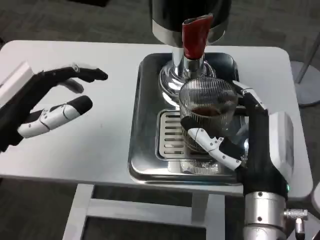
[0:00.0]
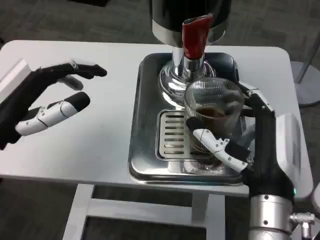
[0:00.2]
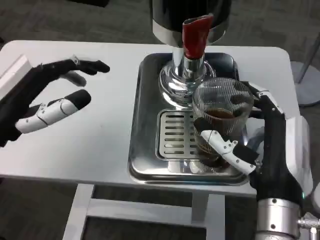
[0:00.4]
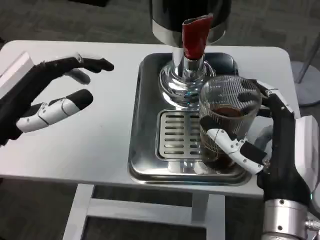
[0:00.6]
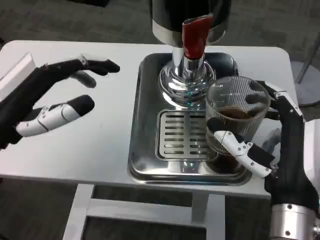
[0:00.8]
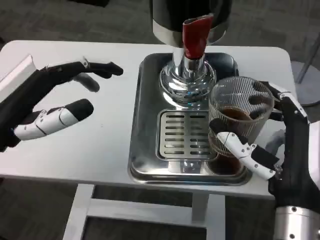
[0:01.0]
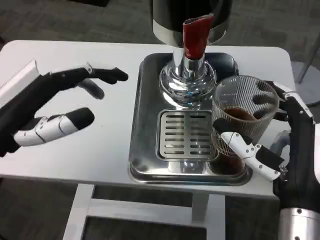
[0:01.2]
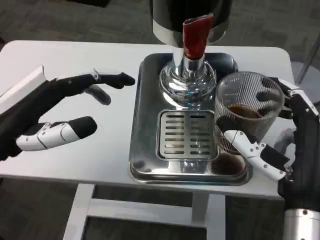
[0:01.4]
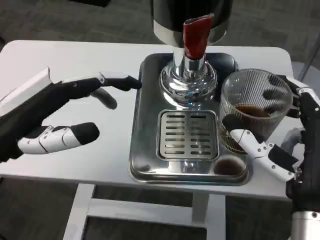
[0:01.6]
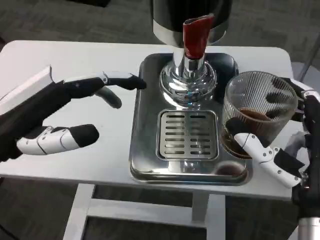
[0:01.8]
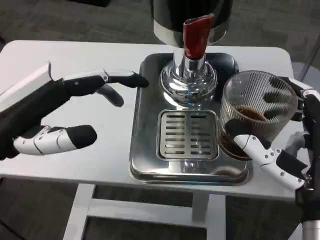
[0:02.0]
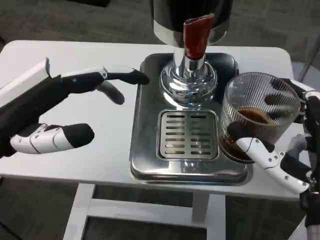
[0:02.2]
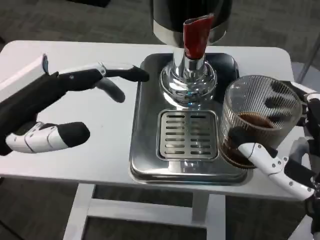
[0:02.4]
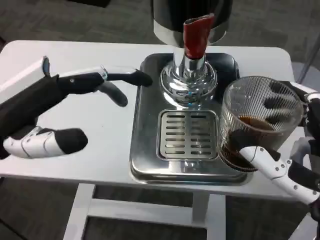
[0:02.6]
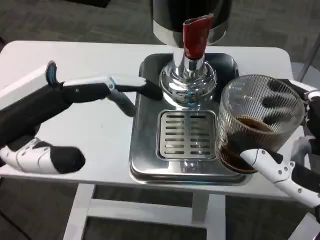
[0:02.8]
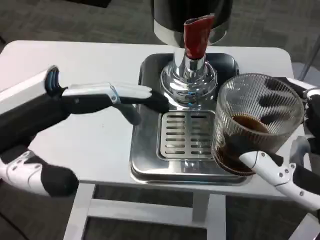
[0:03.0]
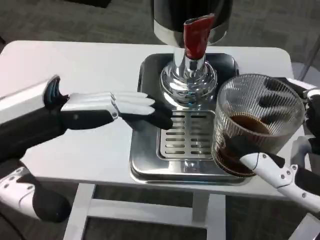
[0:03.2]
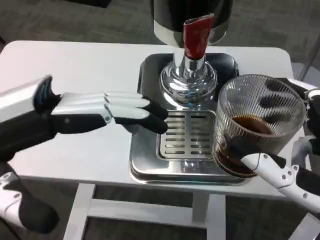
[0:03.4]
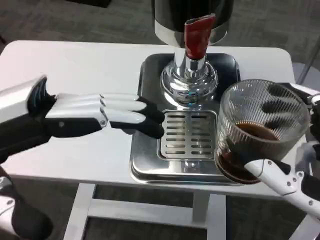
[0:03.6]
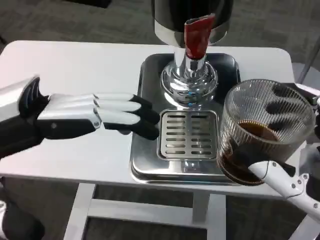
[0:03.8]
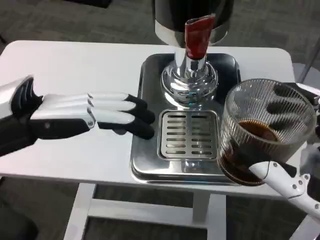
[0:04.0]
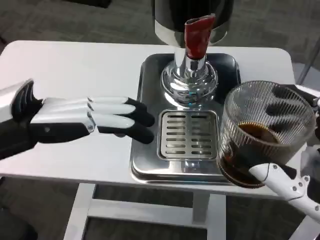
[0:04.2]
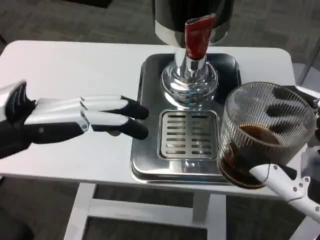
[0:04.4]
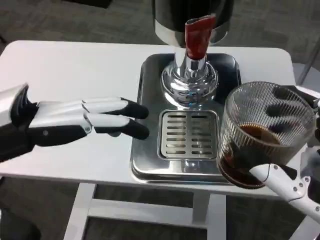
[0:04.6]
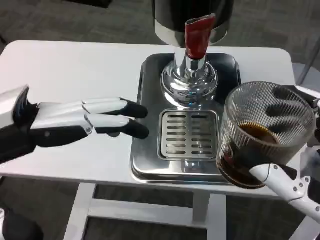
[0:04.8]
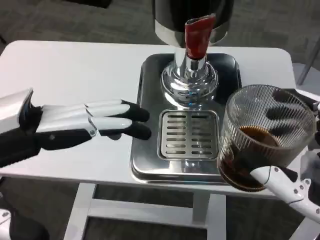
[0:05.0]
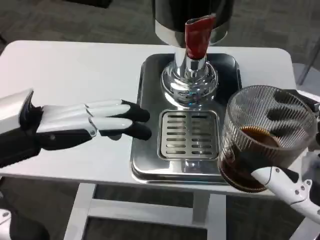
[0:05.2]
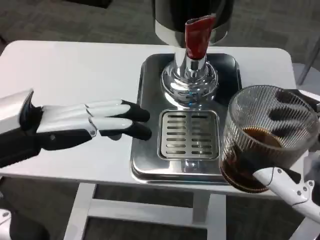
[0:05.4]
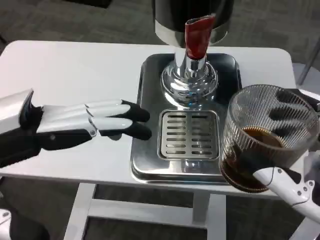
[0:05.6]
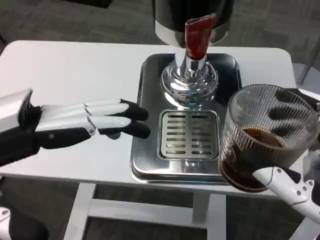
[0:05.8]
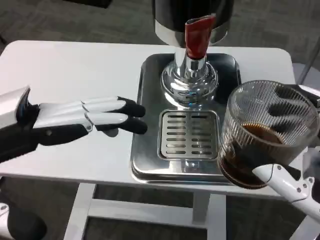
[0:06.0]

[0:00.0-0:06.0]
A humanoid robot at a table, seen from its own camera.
Task of the whole recording: Grasp the cup under the faucet to collect the drink, then remove the cup.
0:00.0 to 0:01.6: The right hand ends up approximately 5 cm from where it was.
0:01.6 to 0:03.0: The left hand shifts by some 5 cm, while the right hand shifts about 5 cm backward.
0:04.4 to 0:06.0: Neither hand changes place.

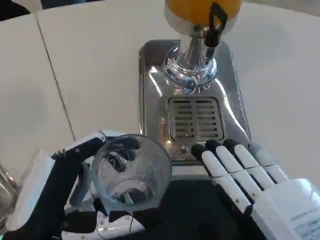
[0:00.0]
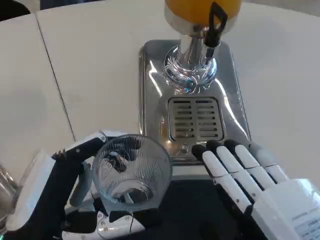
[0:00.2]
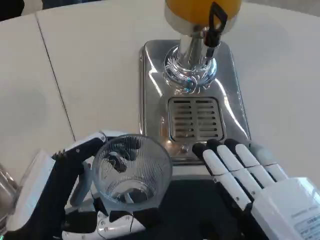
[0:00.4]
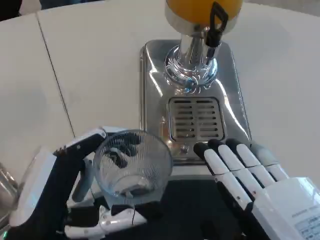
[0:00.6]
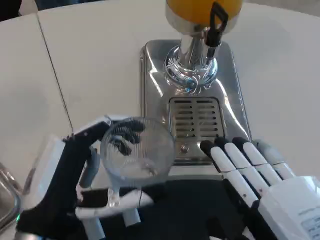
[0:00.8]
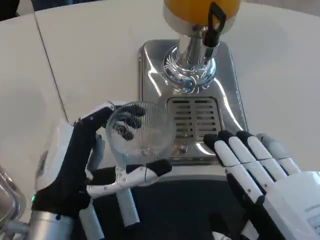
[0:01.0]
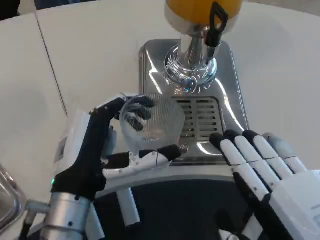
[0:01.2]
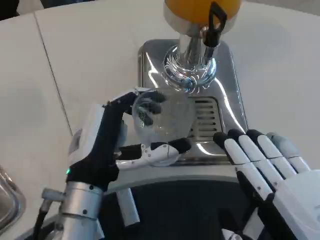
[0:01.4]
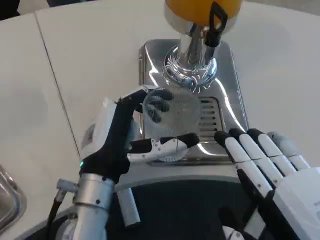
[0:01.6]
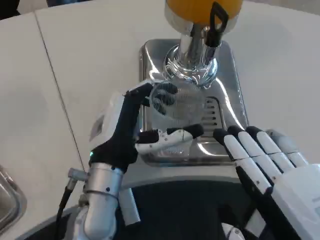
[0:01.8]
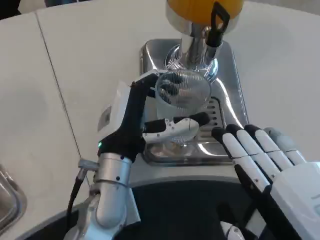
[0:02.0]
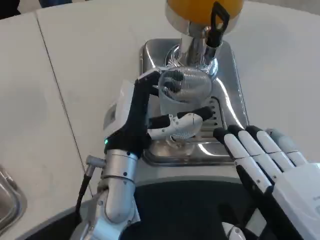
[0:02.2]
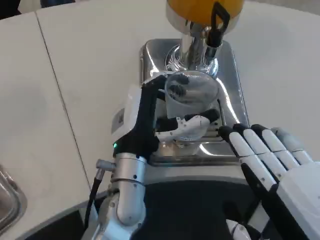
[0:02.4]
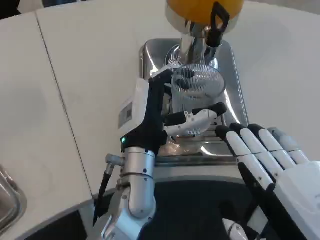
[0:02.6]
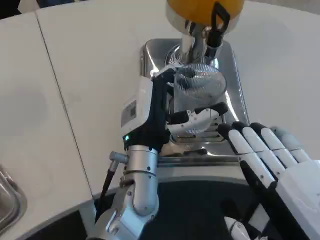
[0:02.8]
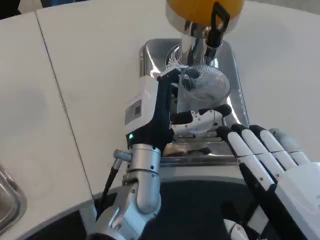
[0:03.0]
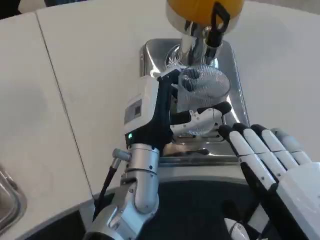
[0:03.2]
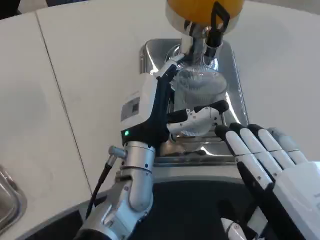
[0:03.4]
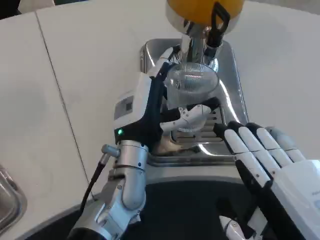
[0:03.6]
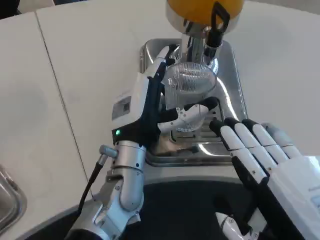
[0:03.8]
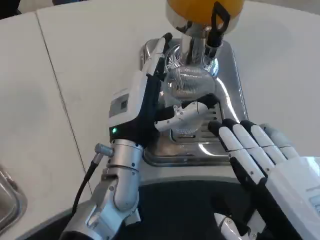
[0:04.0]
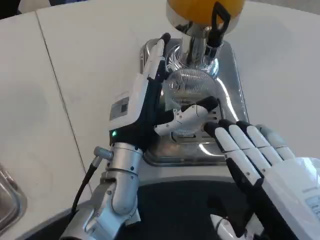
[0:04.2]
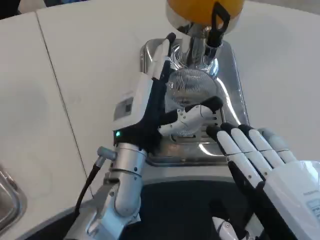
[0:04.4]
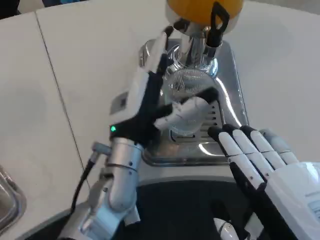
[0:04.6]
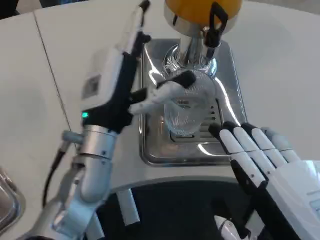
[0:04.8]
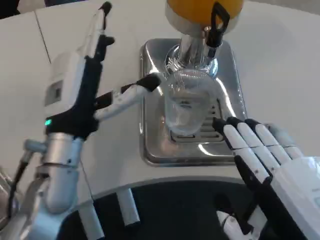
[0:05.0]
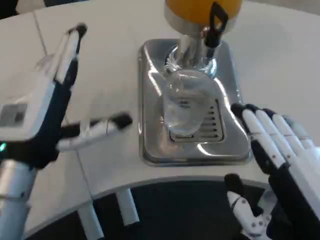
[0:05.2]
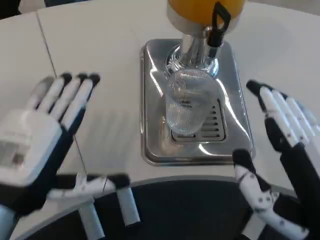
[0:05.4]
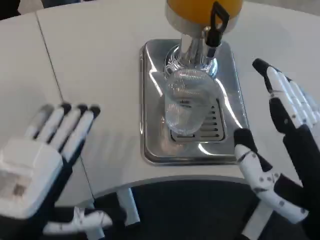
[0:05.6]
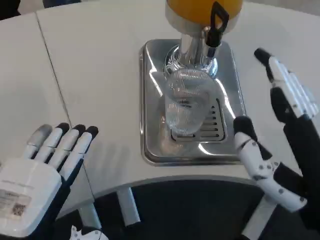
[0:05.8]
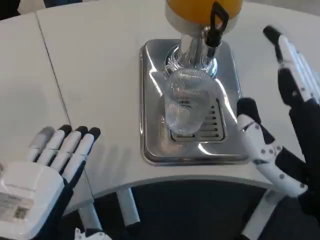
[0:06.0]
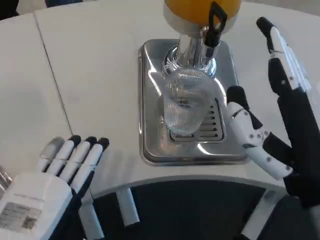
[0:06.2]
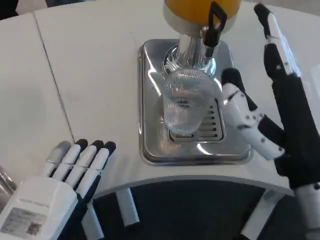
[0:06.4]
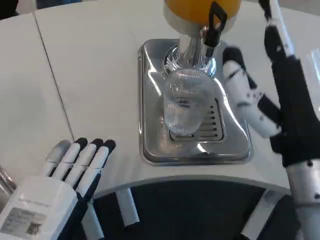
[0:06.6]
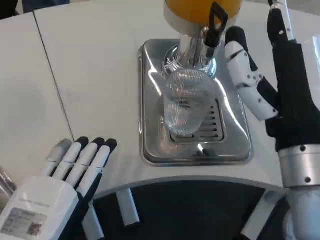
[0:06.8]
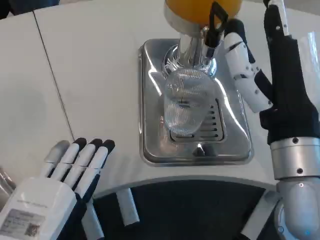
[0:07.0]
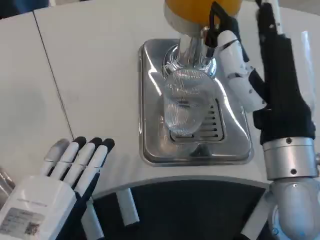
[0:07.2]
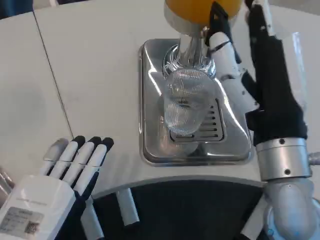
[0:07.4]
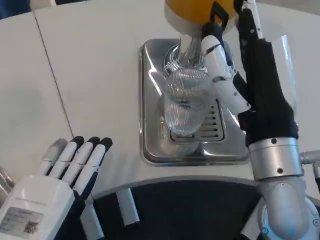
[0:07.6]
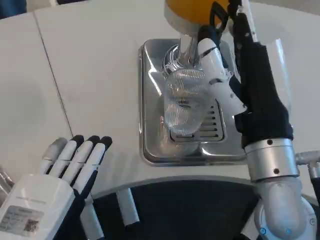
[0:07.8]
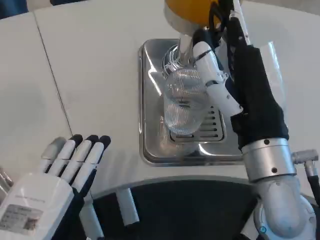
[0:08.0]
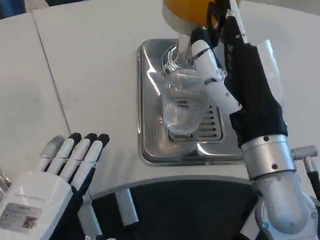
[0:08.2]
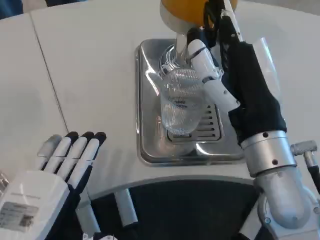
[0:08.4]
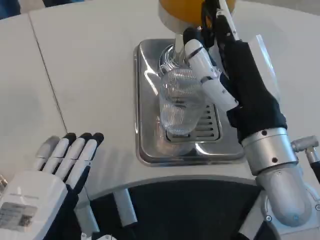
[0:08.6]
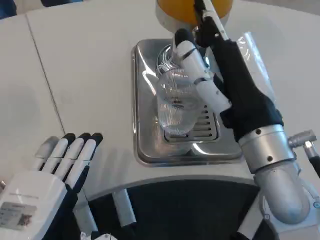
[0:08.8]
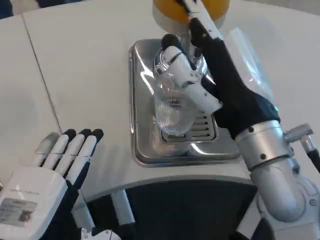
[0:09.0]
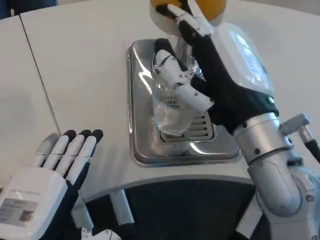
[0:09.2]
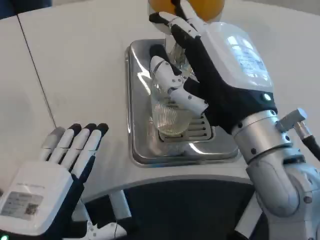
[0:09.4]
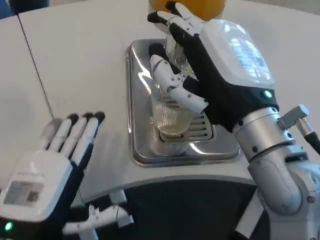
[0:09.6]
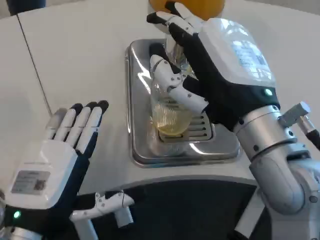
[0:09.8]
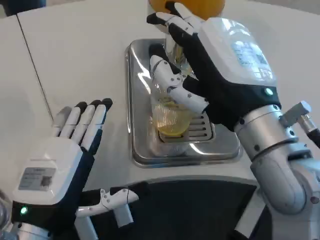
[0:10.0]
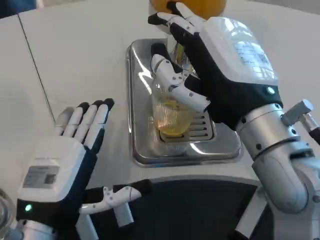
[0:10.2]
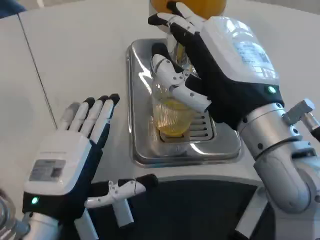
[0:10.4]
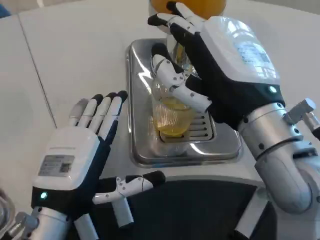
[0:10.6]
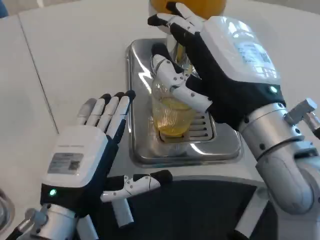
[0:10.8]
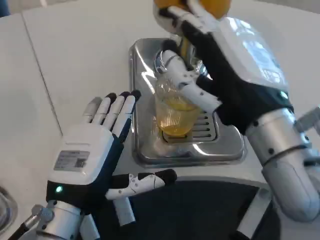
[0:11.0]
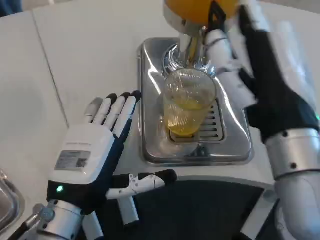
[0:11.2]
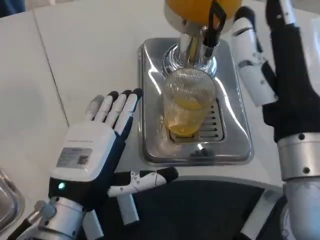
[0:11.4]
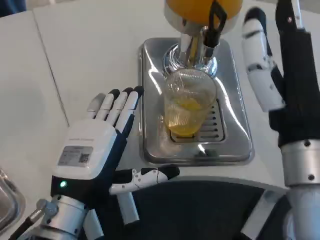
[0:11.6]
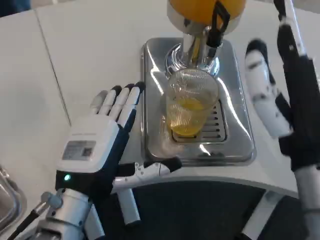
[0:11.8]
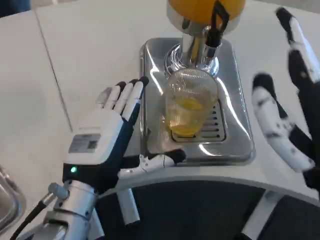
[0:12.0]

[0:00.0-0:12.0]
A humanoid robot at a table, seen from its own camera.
Task of the whole recording: Grasp the cup under the faucet to collect the drink, then remove the cup.
0:00.0 to 0:01.6: The left hand moves forward and to the right, some 15 cm.
0:01.6 to 0:03.0: The left hand is displaced to the right and forward by about 10 cm.
0:04.4 to 0:06.0: The left hand moves backward and to the left, some 20 cm, while the right hand shifts by some 5 cm.
0:06.0 to 0:07.6: The right hand travels forward by some 10 cm.
0:09.0 to 0:10.4: The left hand moves forward, approximately 5 cm.
0:10.4 to 0:12.0: The left hand moves approximately 5 cm. Meanwhile the right hand is displaced backward, to the right and downward by roughly 10 cm.

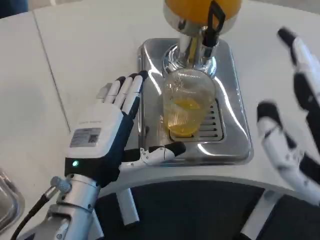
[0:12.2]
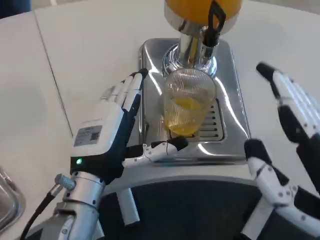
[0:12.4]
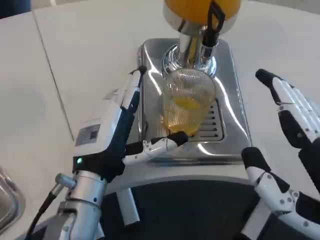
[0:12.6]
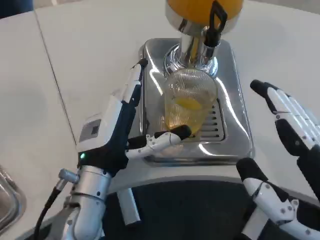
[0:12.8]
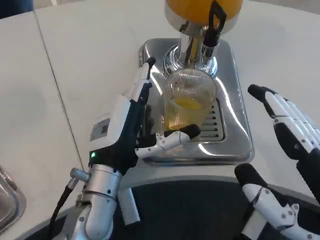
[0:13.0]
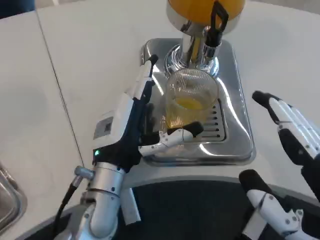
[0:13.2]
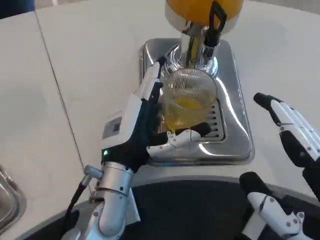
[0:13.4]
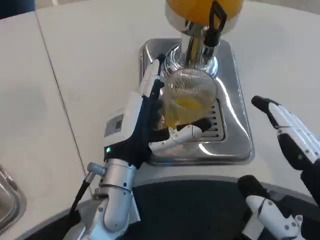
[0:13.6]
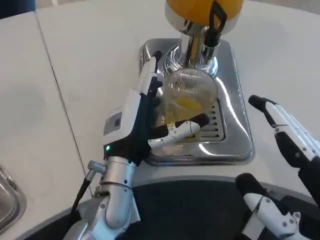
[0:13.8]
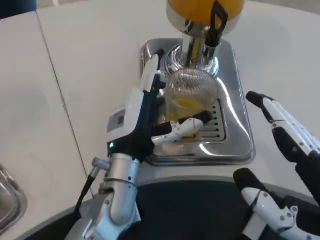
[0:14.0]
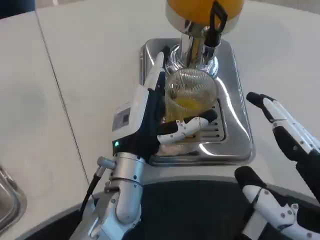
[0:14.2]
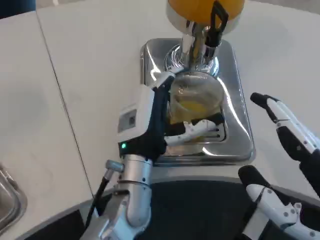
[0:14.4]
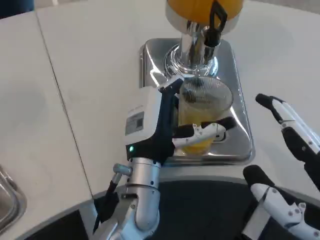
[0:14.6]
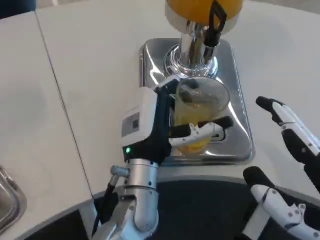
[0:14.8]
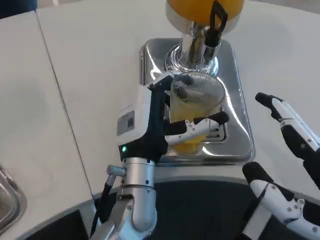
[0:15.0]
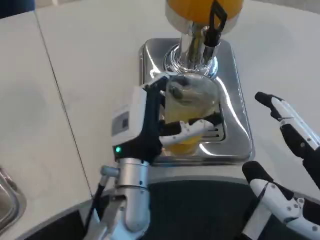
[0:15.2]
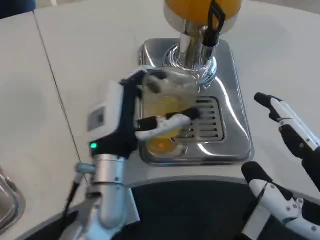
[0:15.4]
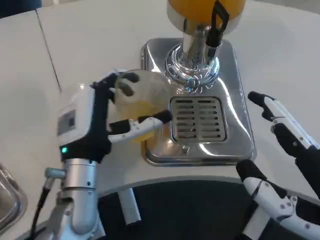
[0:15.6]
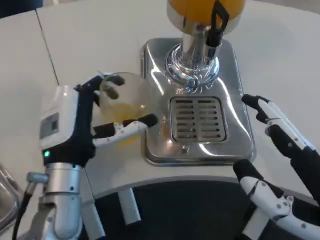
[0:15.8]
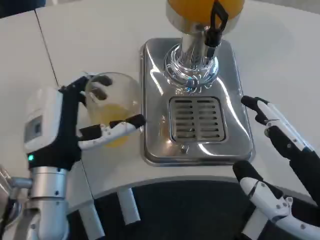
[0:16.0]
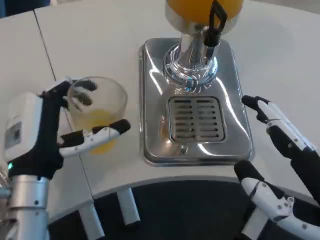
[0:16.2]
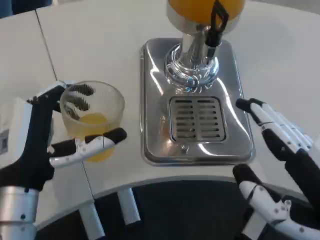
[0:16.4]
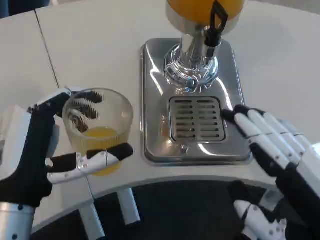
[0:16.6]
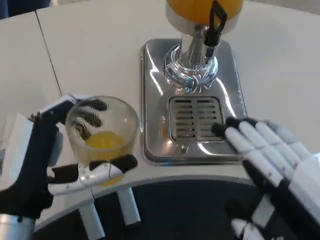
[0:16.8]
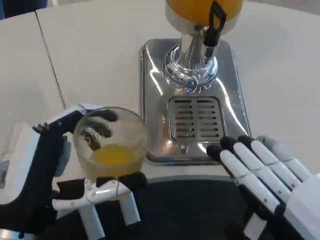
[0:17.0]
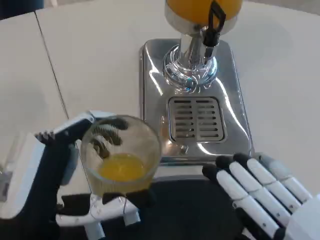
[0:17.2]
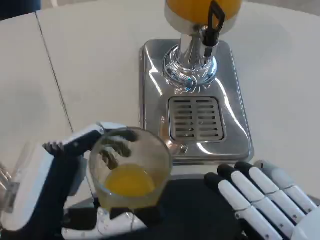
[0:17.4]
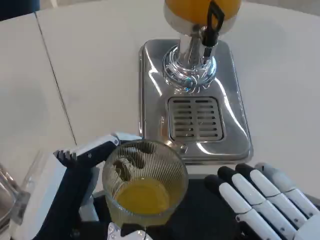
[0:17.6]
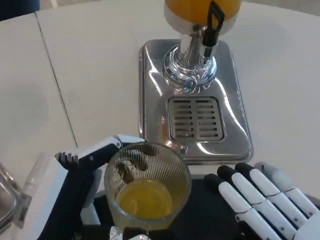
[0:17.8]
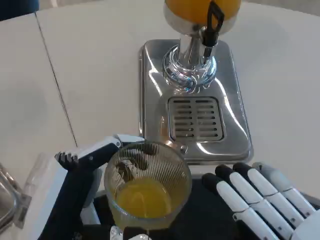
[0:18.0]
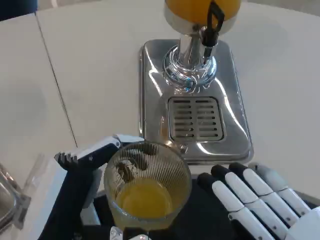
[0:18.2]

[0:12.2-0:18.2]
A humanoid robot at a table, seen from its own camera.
Task of the whole recording: Grasp the cup under the faucet to collect the drink, then remove the cup.
0:12.2 to 0:13.8: The left hand shifts approximately 5 cm to the right.
0:13.8 to 0:15.2: There are only small adjustments of the hands.
0:15.2 to 0:16.6: The left hand moves to the left and backward, some 15 cm.
0:16.6 to 0:18.2: The left hand goes about 5 cm backward; the right hand changes place by some 5 cm.
